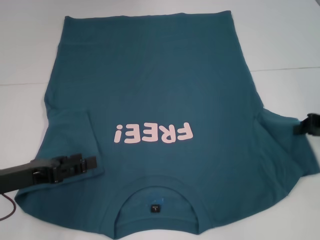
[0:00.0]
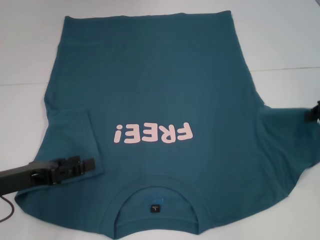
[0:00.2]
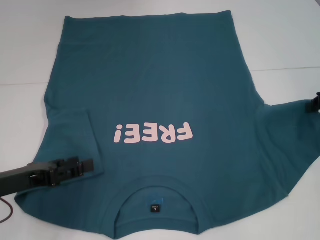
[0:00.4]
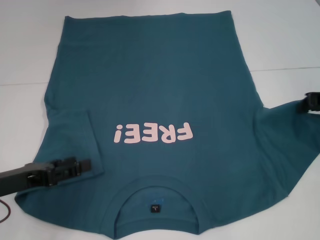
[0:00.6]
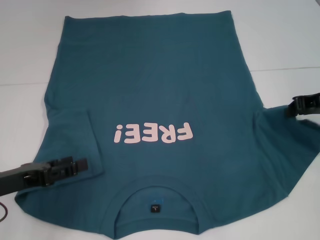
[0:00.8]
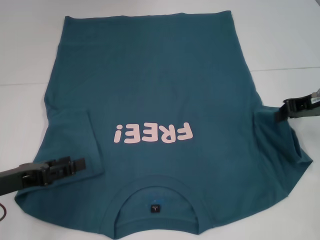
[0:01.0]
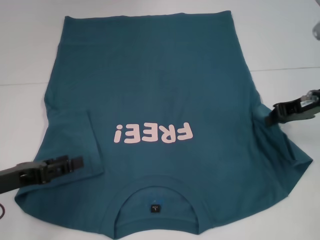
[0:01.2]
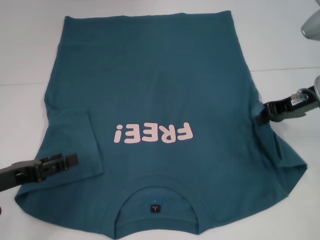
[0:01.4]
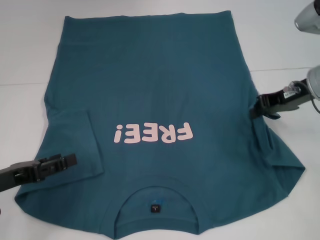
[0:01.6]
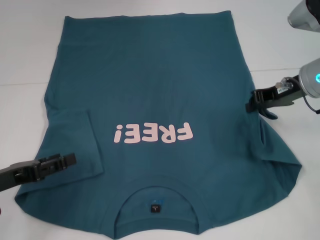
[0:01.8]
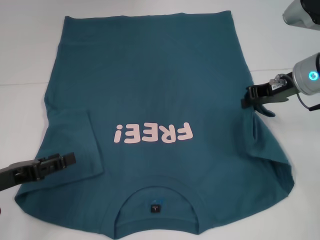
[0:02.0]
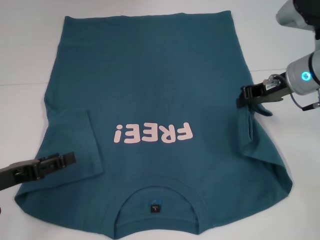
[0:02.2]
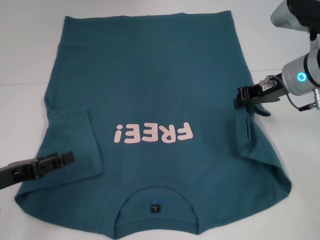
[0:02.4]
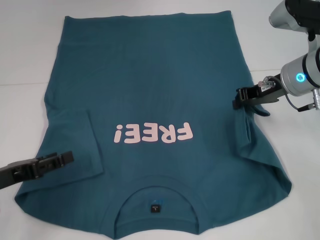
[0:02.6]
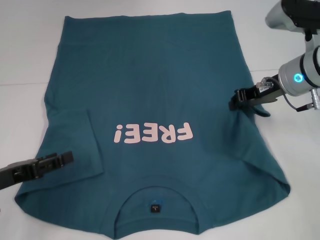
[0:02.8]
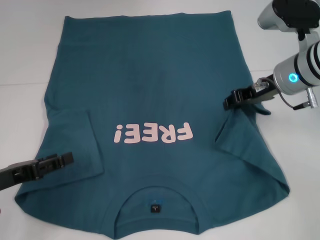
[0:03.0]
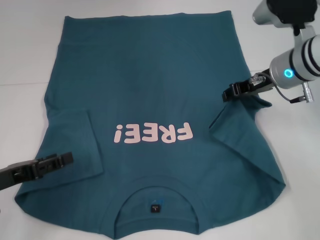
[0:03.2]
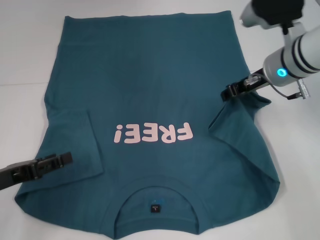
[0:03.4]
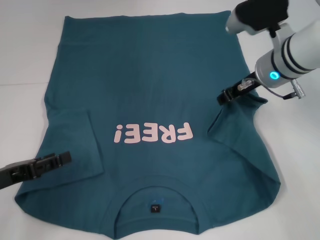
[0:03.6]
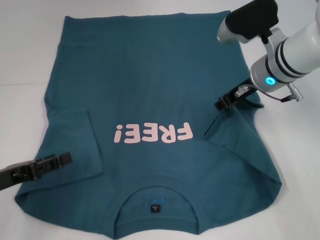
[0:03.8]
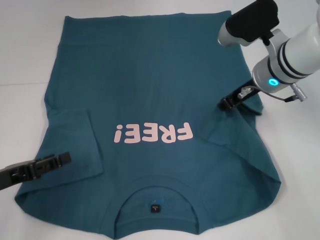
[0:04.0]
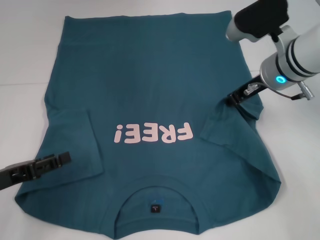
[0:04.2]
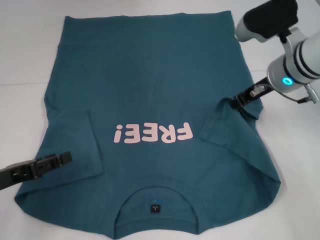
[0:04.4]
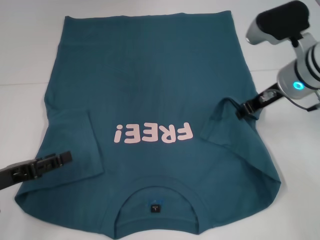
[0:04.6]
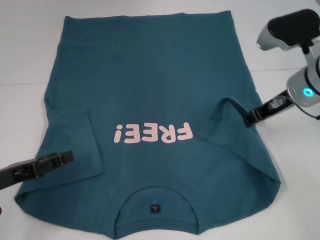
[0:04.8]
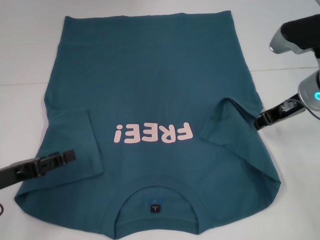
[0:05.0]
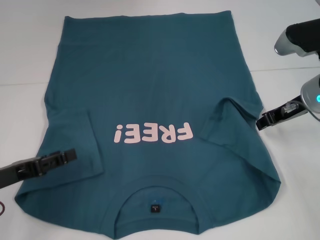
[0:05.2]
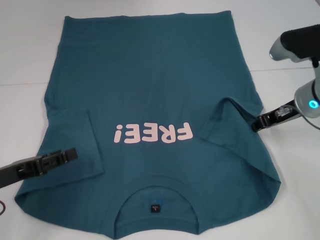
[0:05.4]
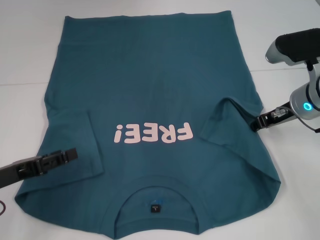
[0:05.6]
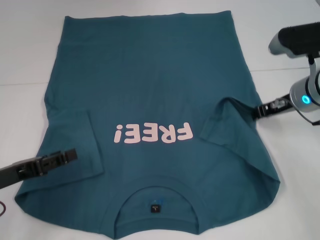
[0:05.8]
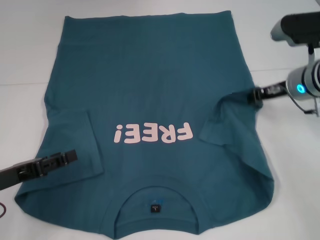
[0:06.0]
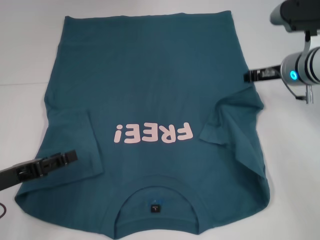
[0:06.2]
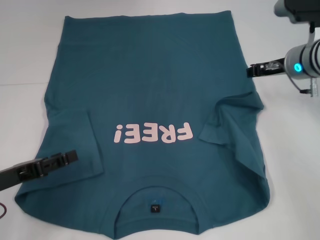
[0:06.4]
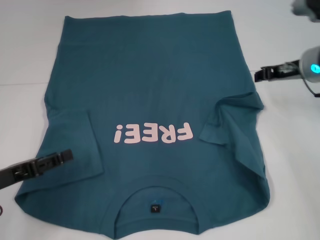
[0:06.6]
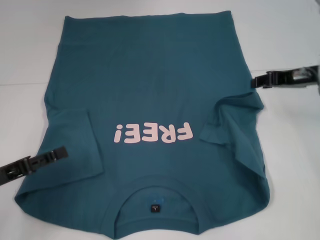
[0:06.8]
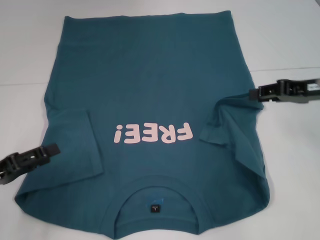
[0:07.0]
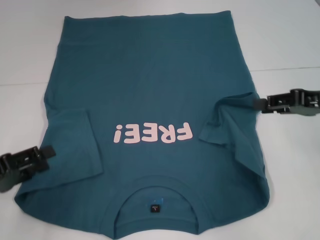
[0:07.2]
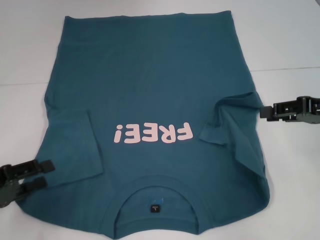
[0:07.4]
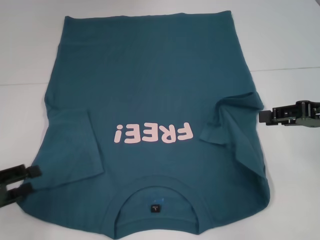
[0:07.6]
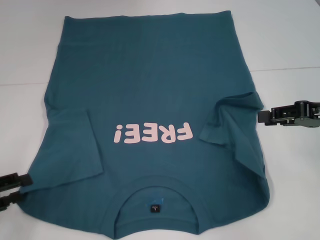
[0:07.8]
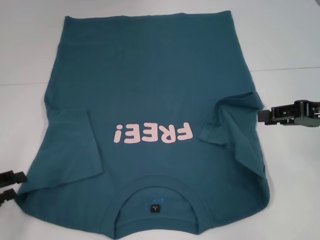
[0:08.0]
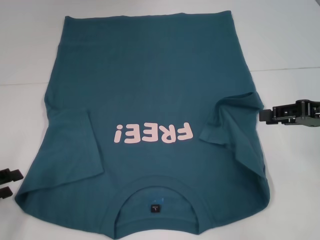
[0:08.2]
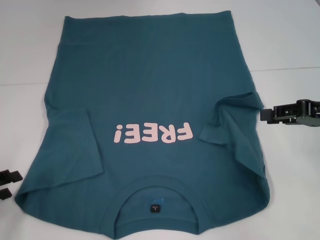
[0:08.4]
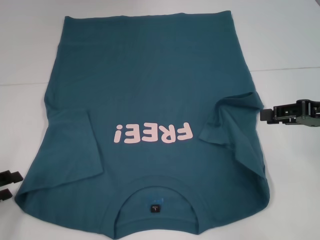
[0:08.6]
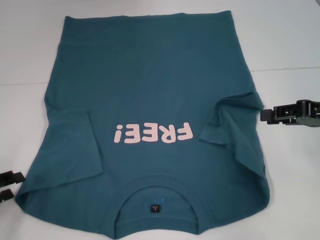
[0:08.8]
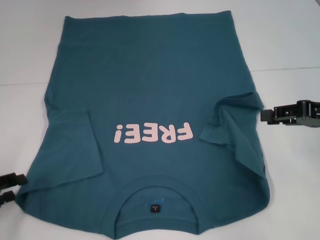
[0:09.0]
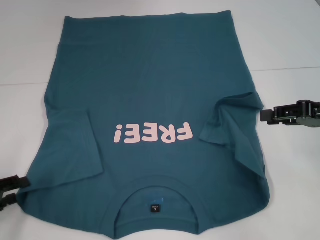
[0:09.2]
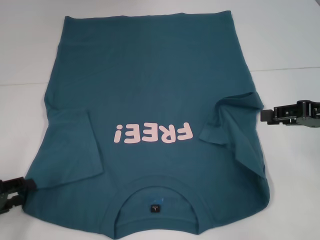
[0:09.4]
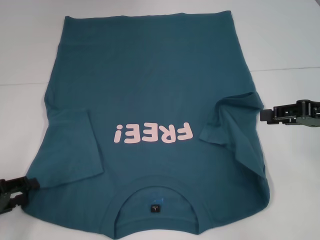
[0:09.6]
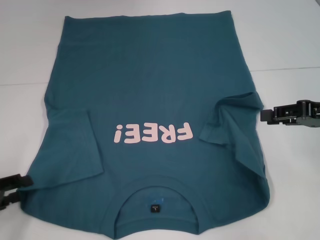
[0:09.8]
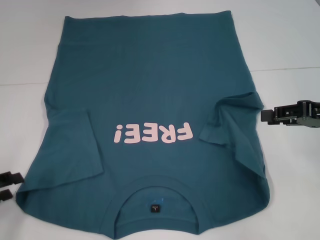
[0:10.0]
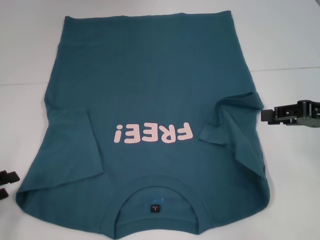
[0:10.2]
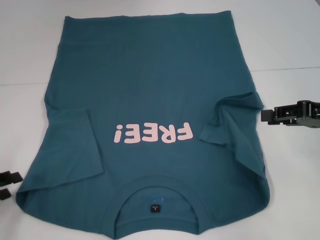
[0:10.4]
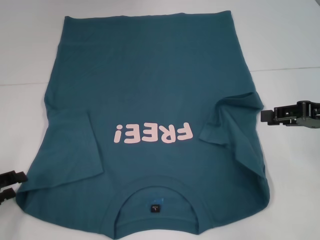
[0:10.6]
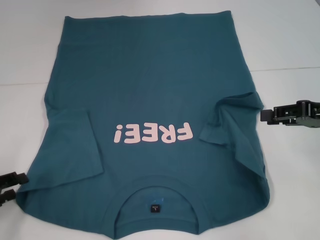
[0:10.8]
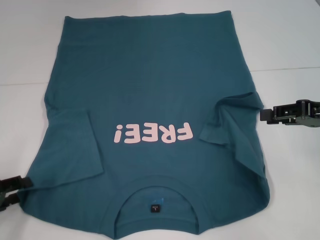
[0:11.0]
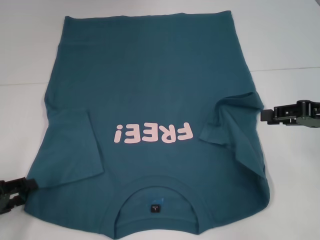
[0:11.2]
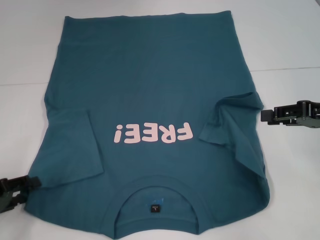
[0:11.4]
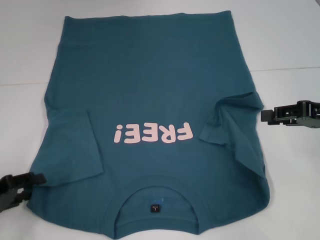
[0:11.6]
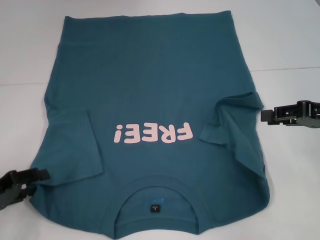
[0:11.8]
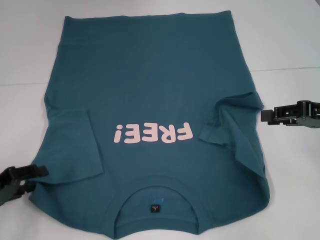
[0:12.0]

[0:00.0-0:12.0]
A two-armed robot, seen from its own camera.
Step, 0:00.0 to 0:06.6: Fold the bottom right sleeve to the right.
0:00.0 to 0:01.6: The right gripper moves to the left and upward, roughly 10 cm.
0:01.6 to 0:03.0: The grippers make only small movements.
0:04.4 to 0:06.0: The right gripper shifts by some 5 cm.
0:06.0 to 0:07.6: The right gripper heads backward and to the right, covering approximately 15 cm. Meanwhile the left gripper moves about 5 cm.
0:07.6 to 0:09.0: There are only small adjustments of the grippers.
0:10.4 to 0:12.0: The grippers make only small movements.

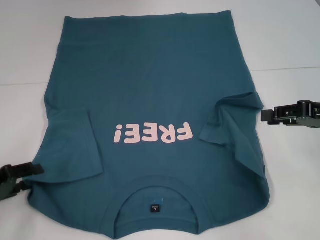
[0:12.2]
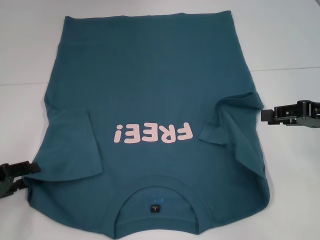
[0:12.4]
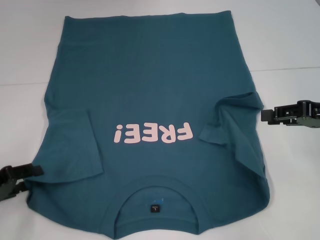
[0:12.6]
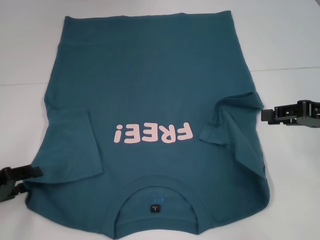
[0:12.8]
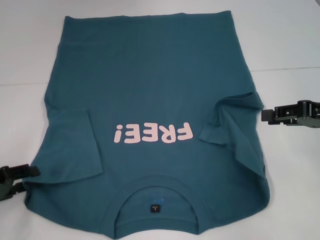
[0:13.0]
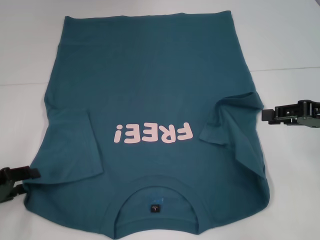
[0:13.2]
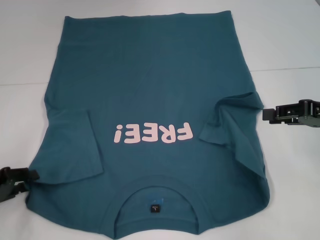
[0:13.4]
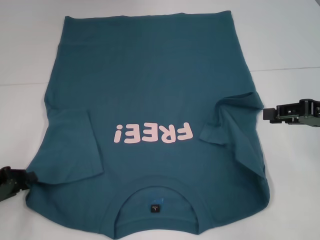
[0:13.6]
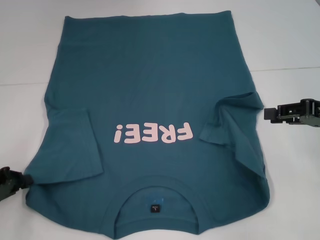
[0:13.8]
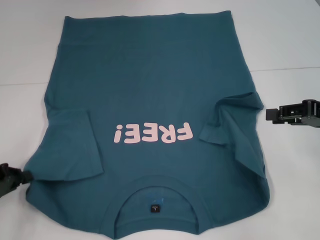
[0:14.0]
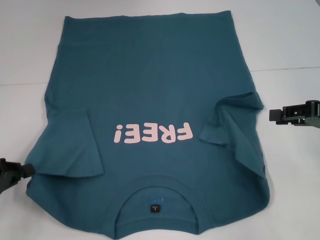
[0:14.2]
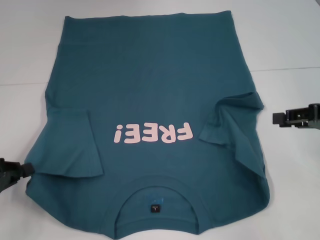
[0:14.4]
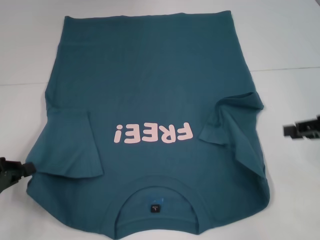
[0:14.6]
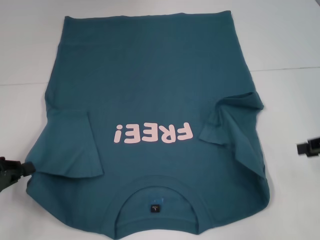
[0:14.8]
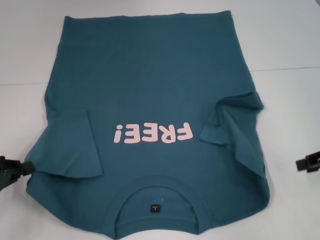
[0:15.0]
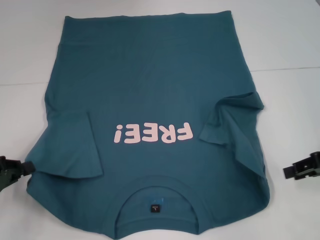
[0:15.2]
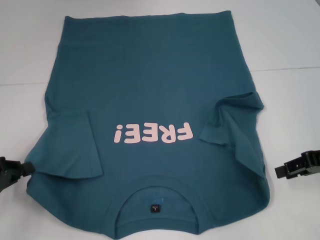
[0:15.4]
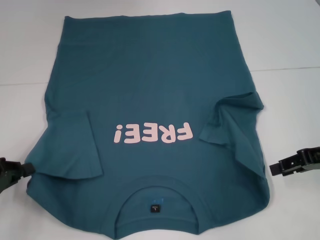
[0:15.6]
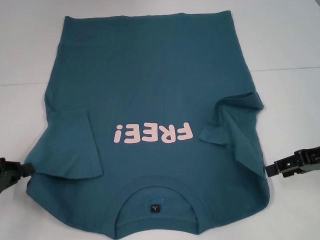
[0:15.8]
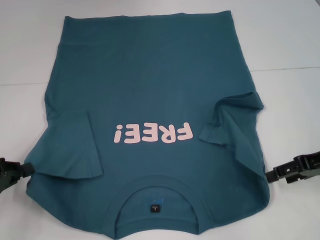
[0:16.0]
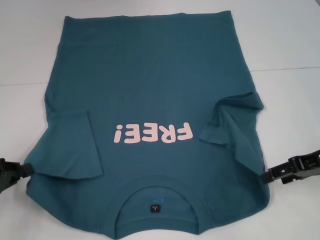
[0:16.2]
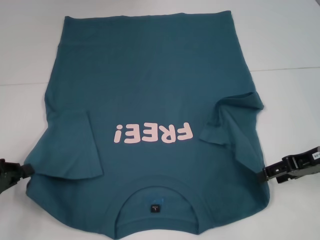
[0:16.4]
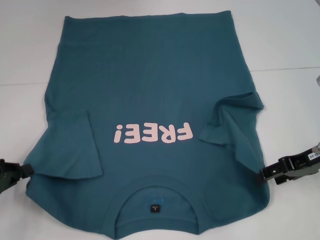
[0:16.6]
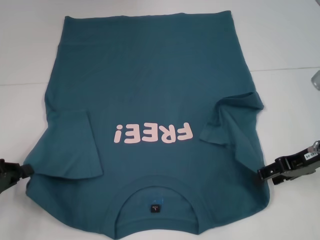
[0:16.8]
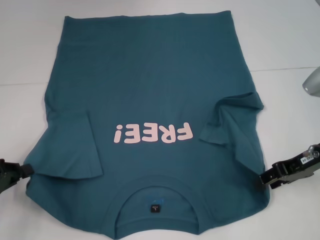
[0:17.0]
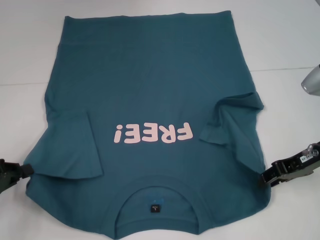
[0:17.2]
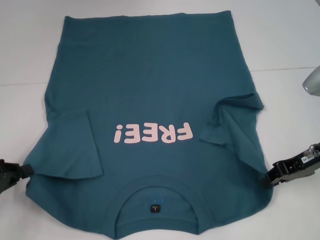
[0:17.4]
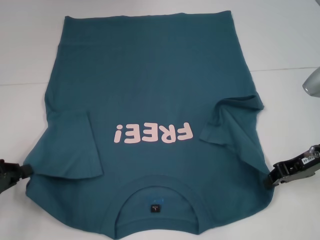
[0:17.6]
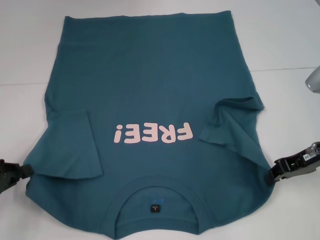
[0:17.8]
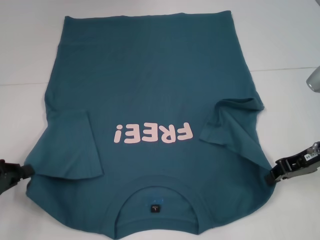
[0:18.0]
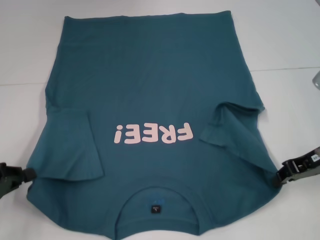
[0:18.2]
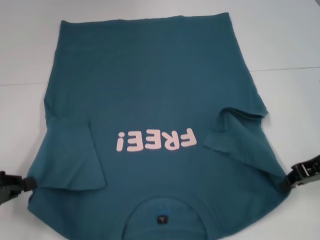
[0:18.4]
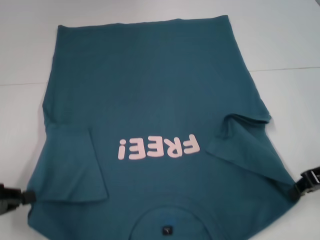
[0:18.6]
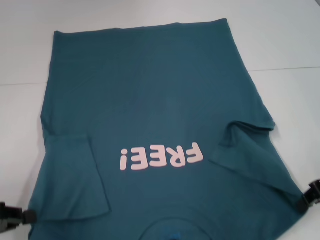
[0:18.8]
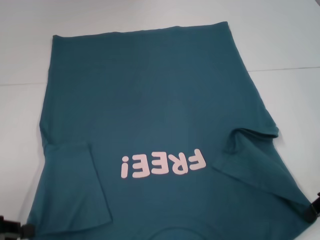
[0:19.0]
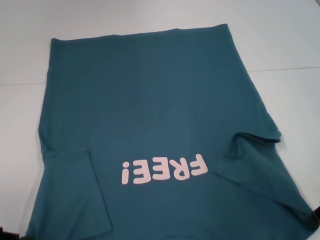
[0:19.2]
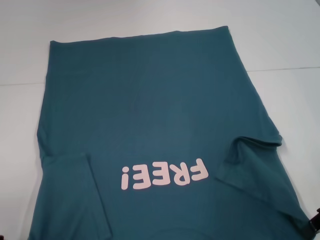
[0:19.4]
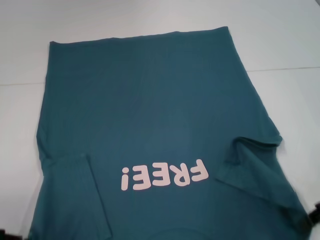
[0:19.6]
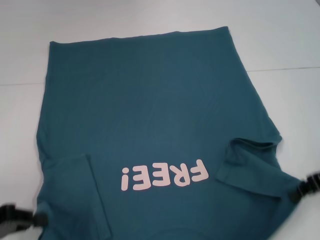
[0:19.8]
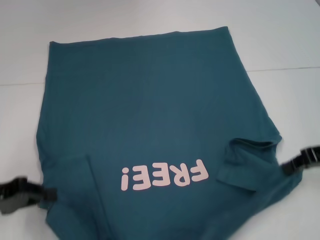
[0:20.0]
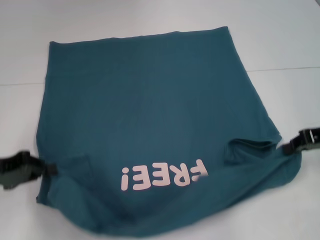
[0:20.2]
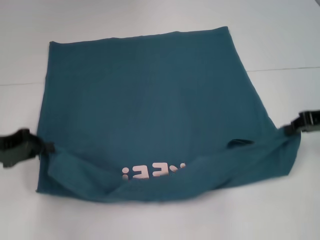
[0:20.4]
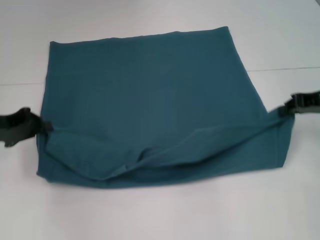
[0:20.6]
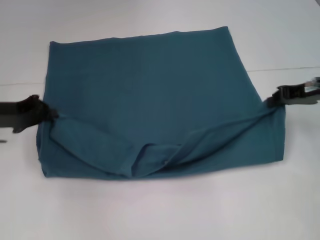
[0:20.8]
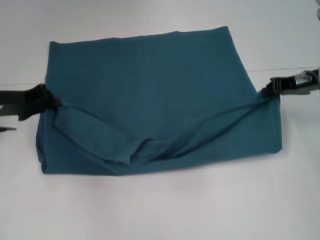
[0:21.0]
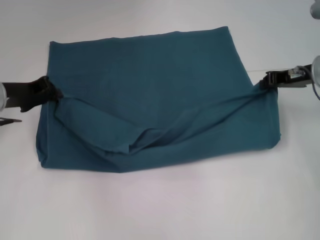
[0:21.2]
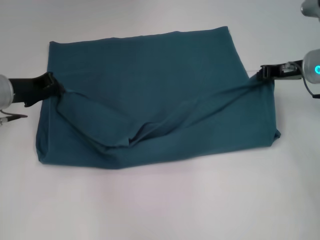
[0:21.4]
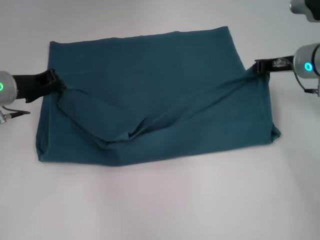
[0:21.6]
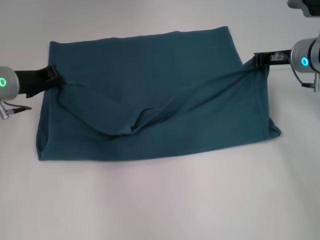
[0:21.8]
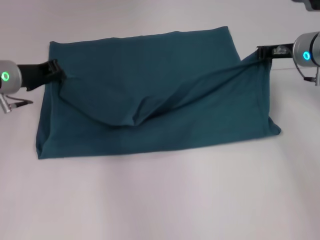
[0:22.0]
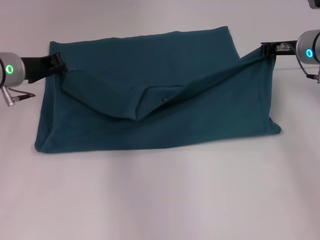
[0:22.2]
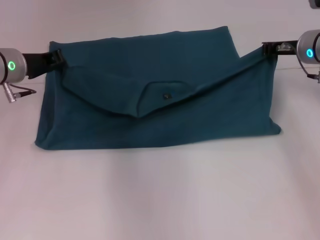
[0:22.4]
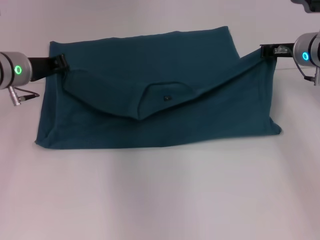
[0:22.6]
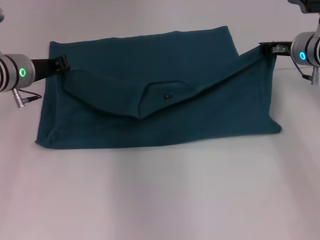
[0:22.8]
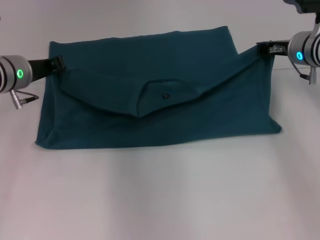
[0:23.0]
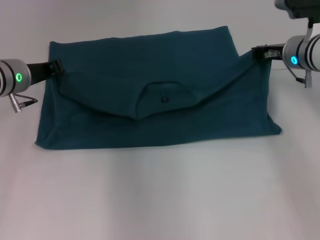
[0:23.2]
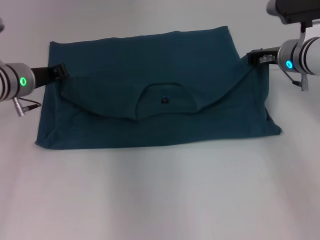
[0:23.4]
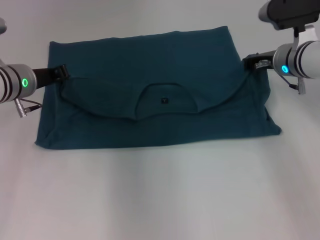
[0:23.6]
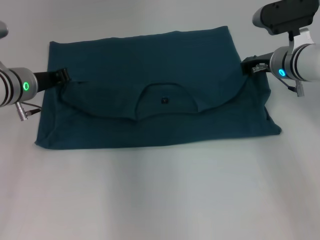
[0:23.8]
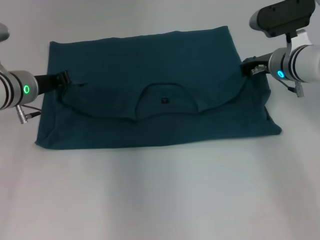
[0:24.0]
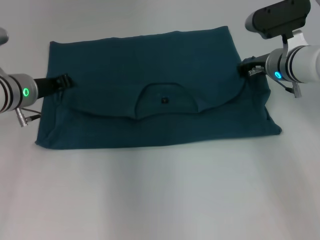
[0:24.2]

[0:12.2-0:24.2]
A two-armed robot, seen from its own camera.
Step, 0:12.2 to 0:14.6: Grab the bottom left corner with your left hand.
Step, 0:14.8 to 0:18.2: Grab the bottom right corner with your right hand.
0:12.2 to 0:13.8: Both grippers stay about where they are.
0:15.2 to 0:16.6: The right gripper moves roughly 5 cm, and opens its fingers.
0:16.6 to 0:18.2: The right gripper closes up.
0:19.8 to 0:21.2: The two grippers go about 15 cm forward.
0:21.2 to 0:22.6: The left gripper shifts by approximately 5 cm.
0:22.6 to 0:24.2: The right gripper shifts by approximately 5 cm.
